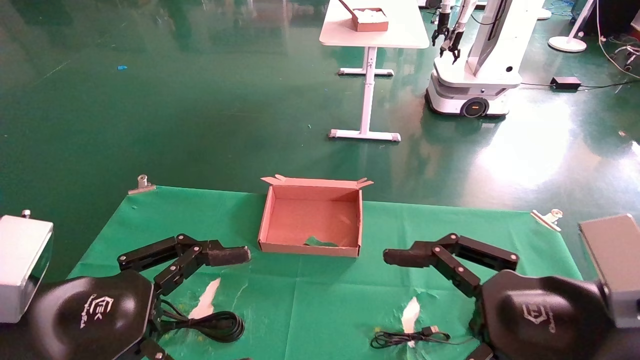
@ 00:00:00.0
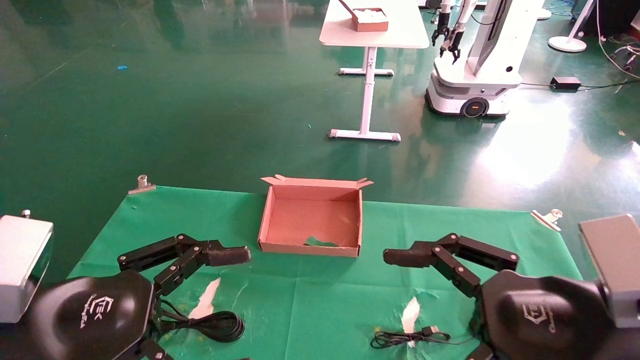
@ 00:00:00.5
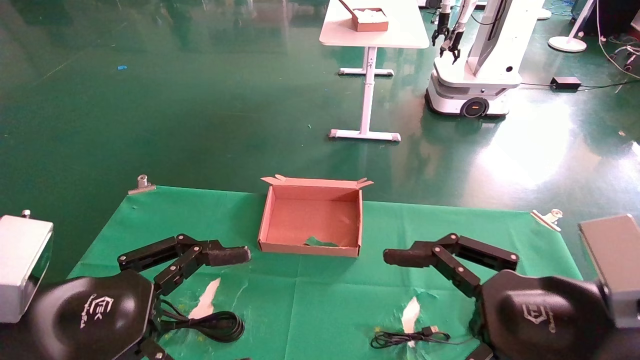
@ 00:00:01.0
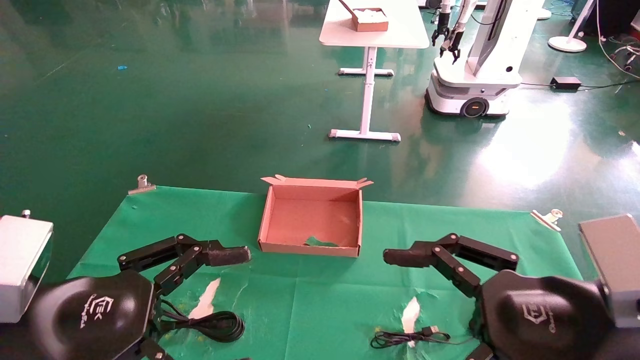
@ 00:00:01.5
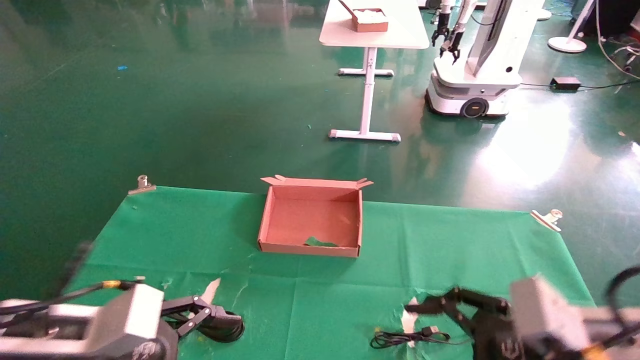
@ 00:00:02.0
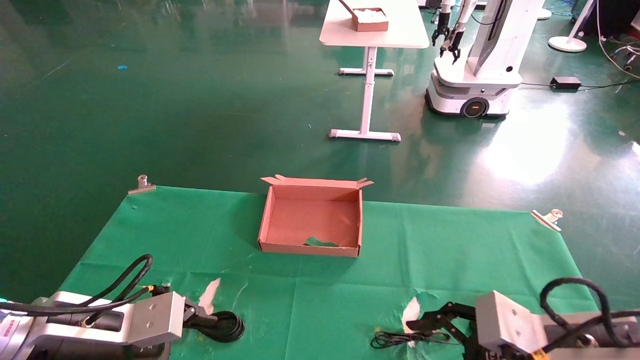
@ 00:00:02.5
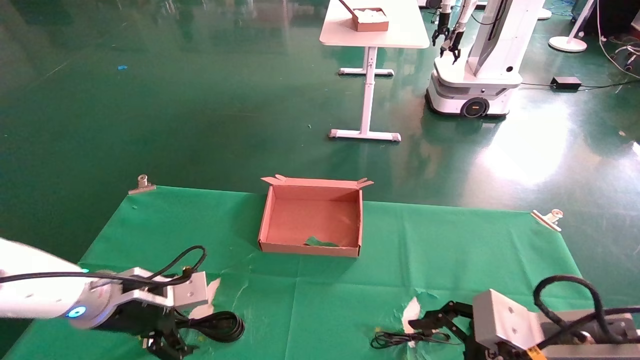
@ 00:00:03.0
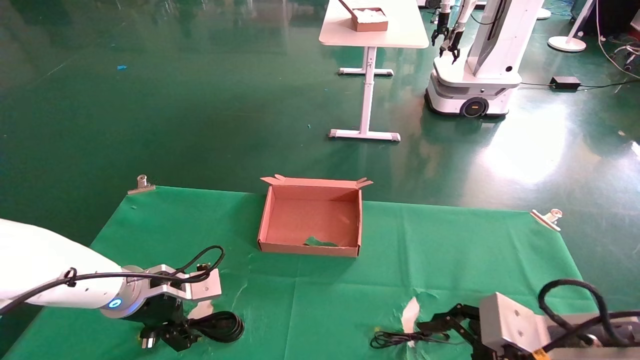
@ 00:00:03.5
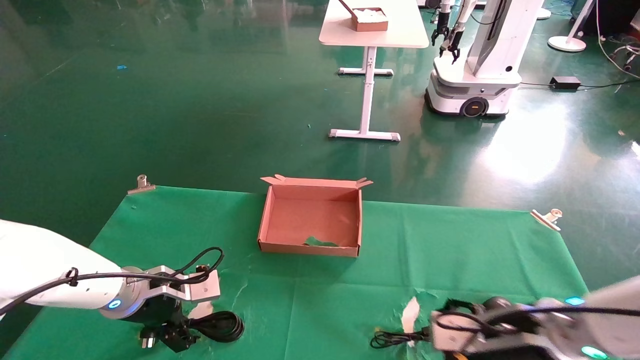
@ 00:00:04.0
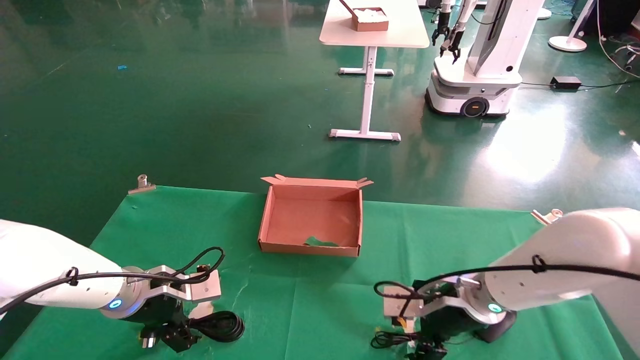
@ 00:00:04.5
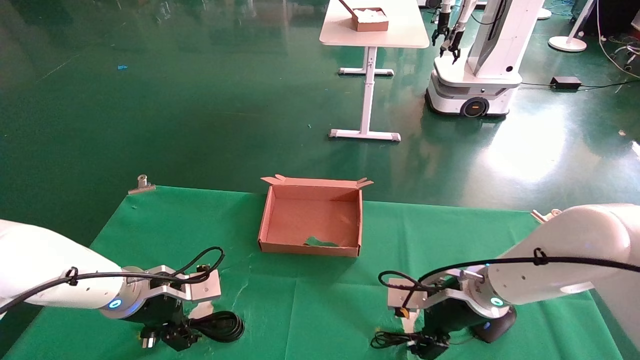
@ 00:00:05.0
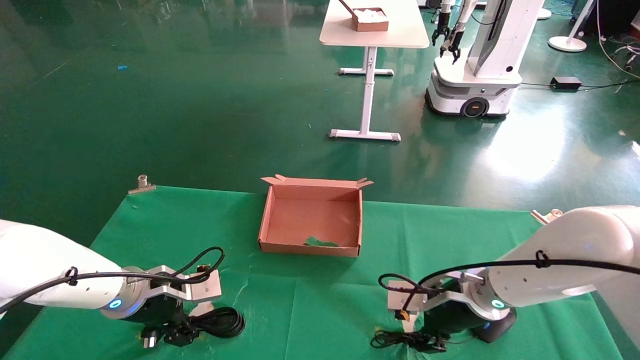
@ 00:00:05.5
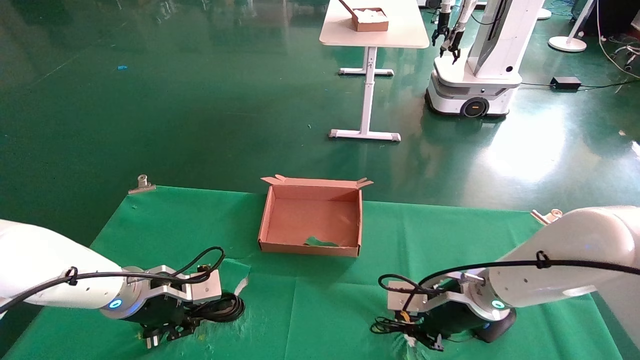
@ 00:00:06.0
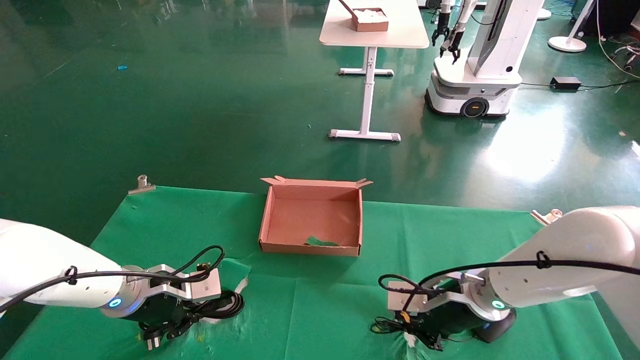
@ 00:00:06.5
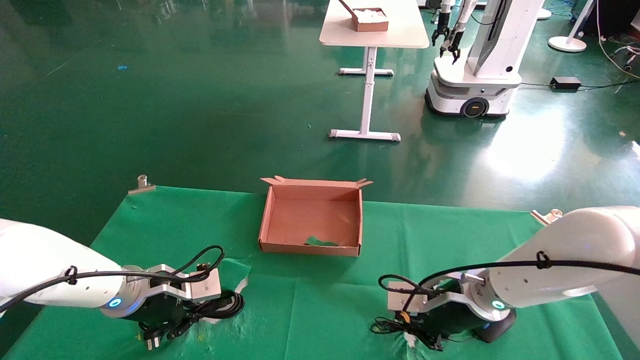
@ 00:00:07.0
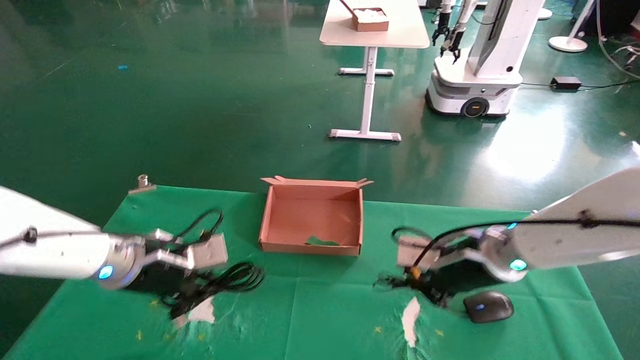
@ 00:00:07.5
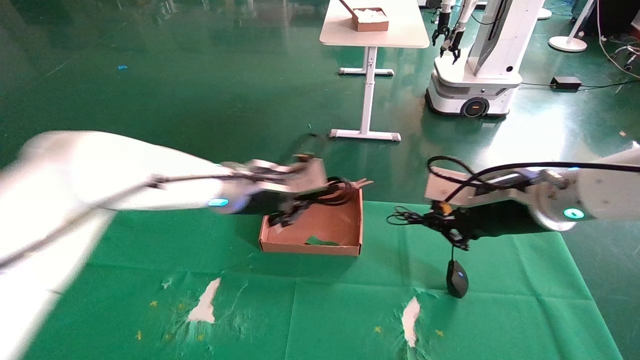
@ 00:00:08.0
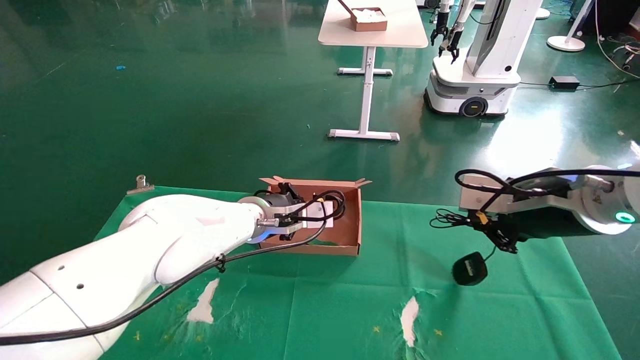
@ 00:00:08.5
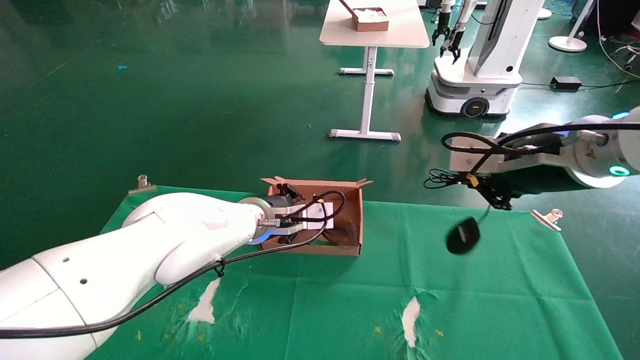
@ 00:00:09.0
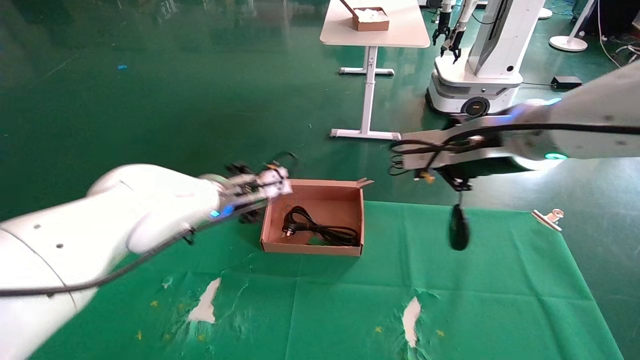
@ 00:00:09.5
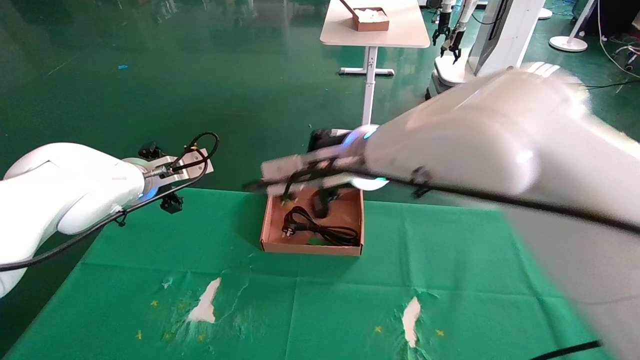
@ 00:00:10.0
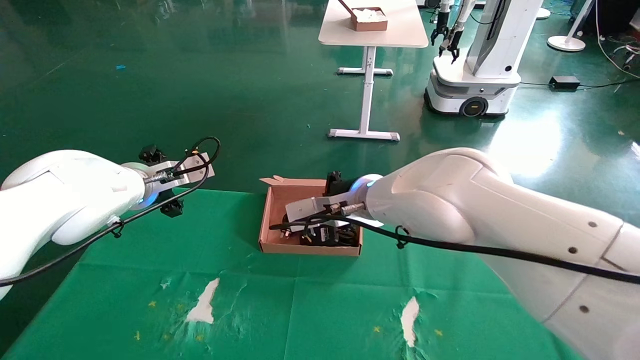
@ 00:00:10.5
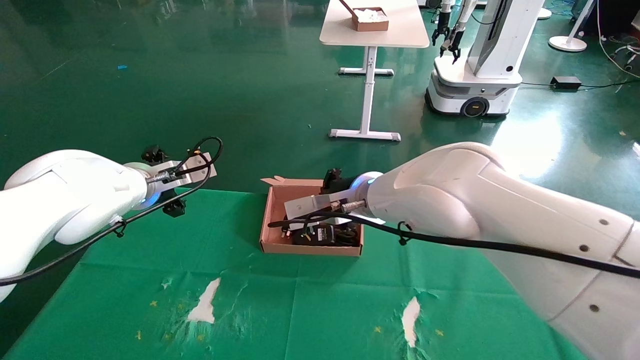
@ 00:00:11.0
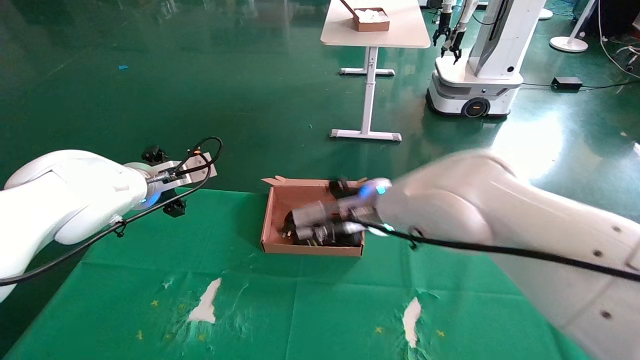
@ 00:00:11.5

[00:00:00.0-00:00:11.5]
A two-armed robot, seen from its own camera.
Step, 00:00:02.5 to 00:00:06.5: Grab and lift both the mouse and power cord from the accessory packaging area at the same time.
00:00:00.0 to 00:00:02.0: The left gripper heads downward and forward, covering about 10 cm. Meanwhile the right gripper shifts some 5 cm downward.
00:00:02.0 to 00:00:04.0: The right gripper moves forward and downward, about 10 cm. The left gripper is displaced forward by some 15 cm.
00:00:04.0 to 00:00:06.0: The right gripper travels forward by about 10 cm, and closes its fingers. The left gripper closes its fingers.
00:00:06.0 to 00:00:07.5: The grippers both shift upward by roughly 5 cm.
00:00:07.5 to 00:00:09.5: The left gripper goes some 15 cm forward, to the right and upward, and opens its fingers; the right gripper shifts approximately 15 cm upward.
00:00:09.5 to 00:00:11.5: The right gripper moves to the left, downward and forward, about 20 cm, and opens; the left gripper travels to the left by some 10 cm, and opens its fingers.

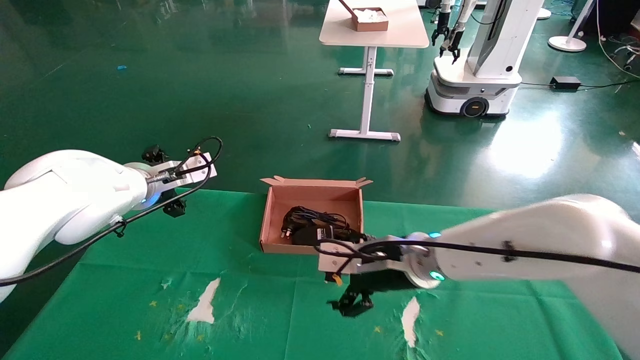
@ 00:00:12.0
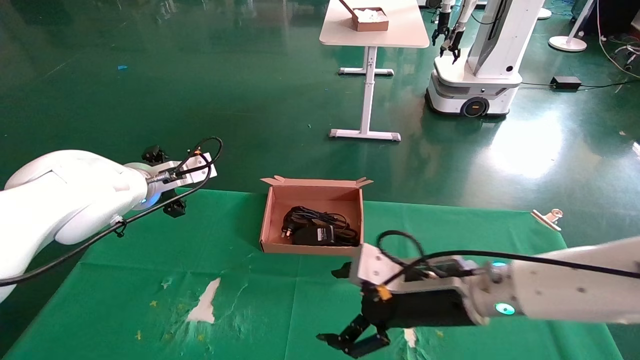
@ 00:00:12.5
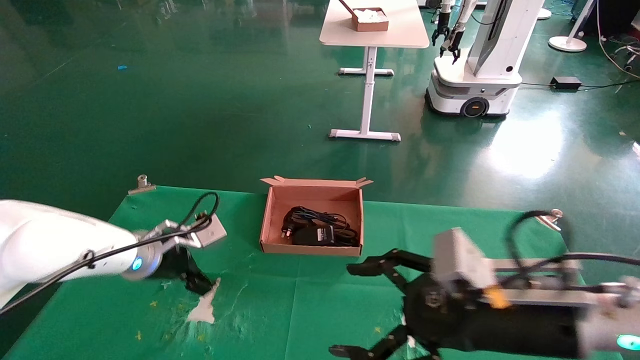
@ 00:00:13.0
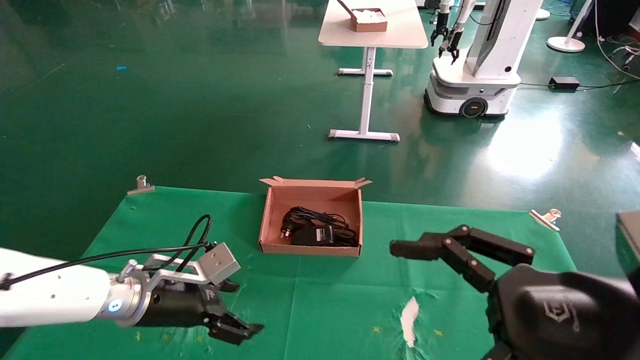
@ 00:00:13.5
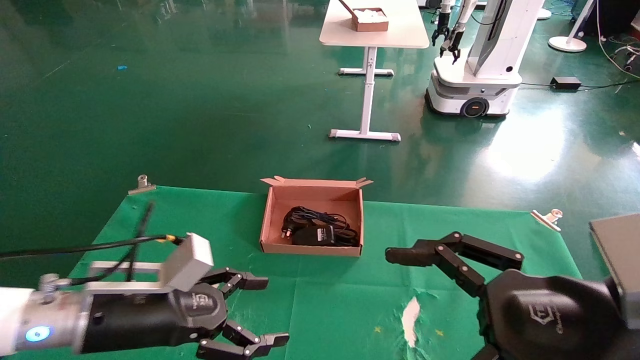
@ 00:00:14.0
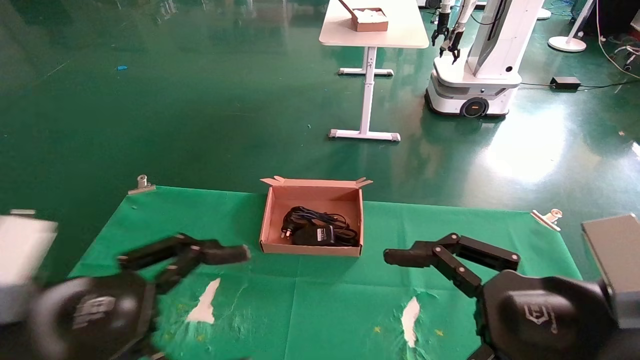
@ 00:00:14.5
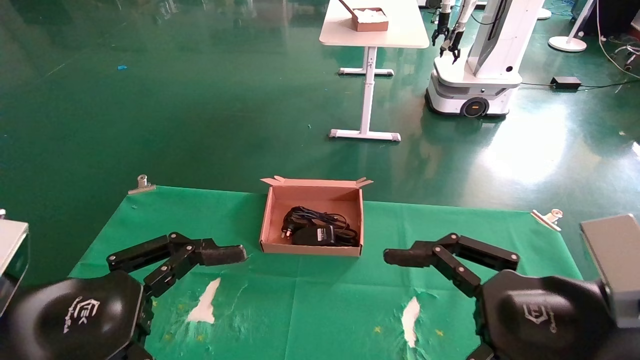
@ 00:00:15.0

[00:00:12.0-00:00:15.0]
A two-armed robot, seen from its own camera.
00:00:12.0 to 00:00:13.5: The left gripper heads downward and backward, covering some 15 cm. Meanwhile the right gripper is displaced backward and to the right by some 25 cm.
00:00:13.5 to 00:00:15.0: The left gripper goes about 20 cm backward and upward.
